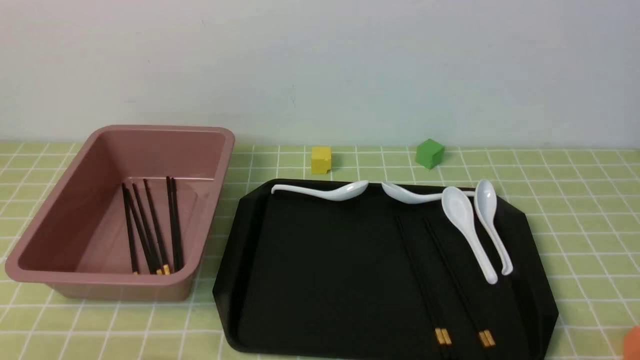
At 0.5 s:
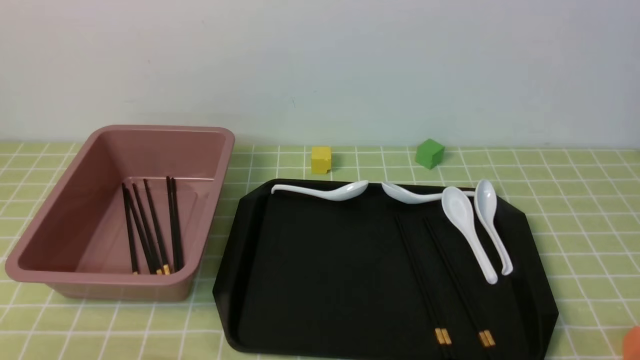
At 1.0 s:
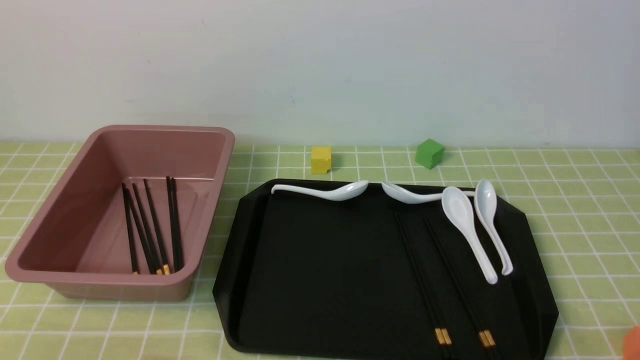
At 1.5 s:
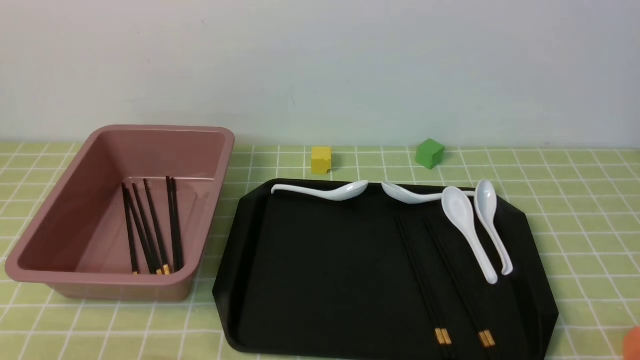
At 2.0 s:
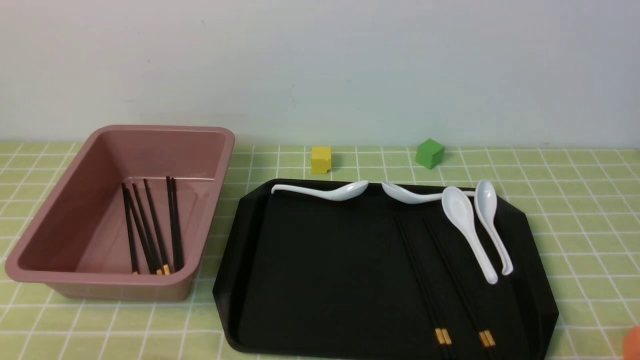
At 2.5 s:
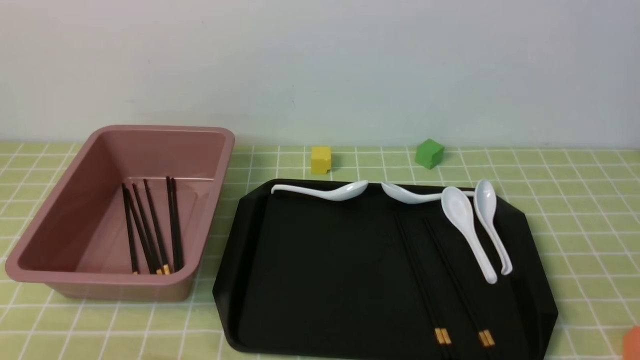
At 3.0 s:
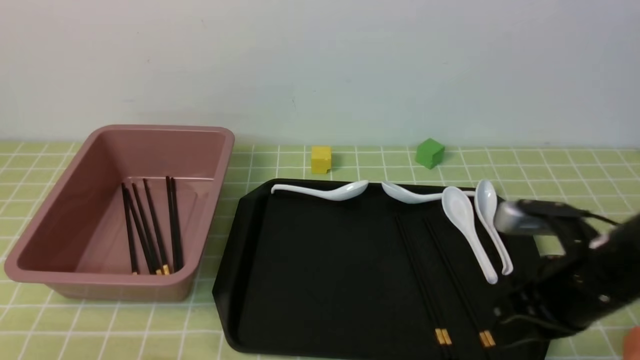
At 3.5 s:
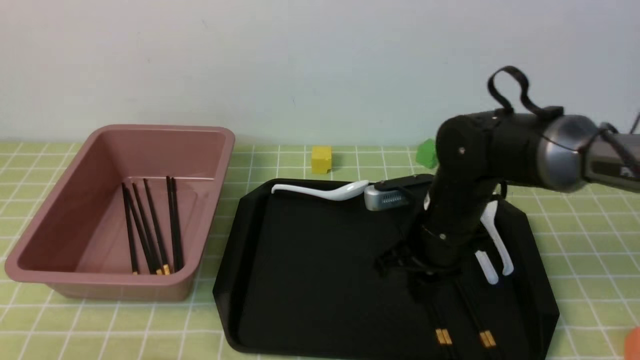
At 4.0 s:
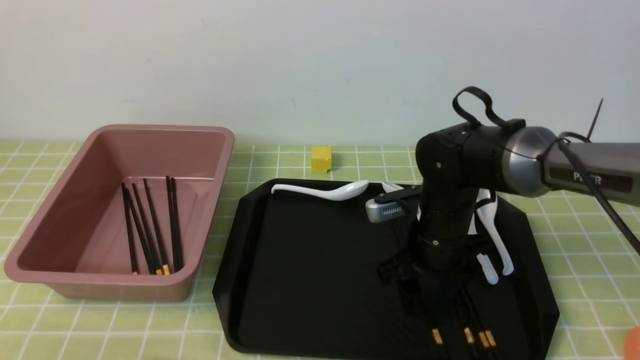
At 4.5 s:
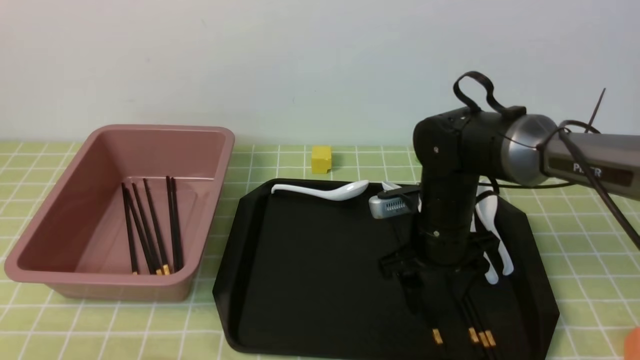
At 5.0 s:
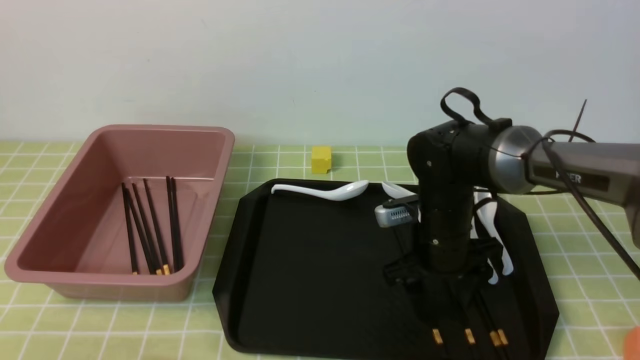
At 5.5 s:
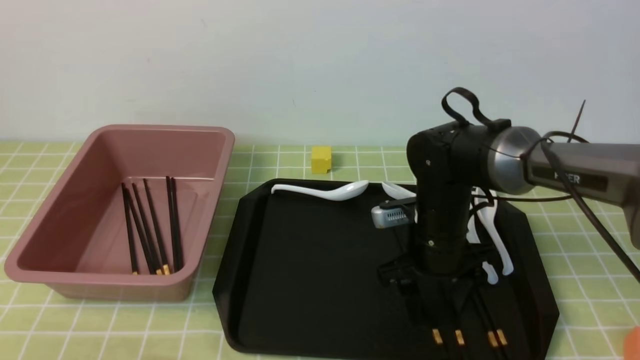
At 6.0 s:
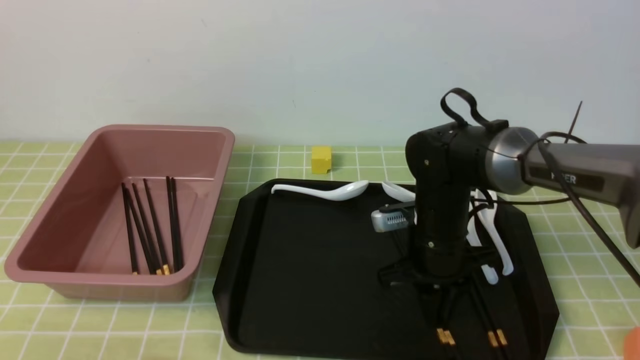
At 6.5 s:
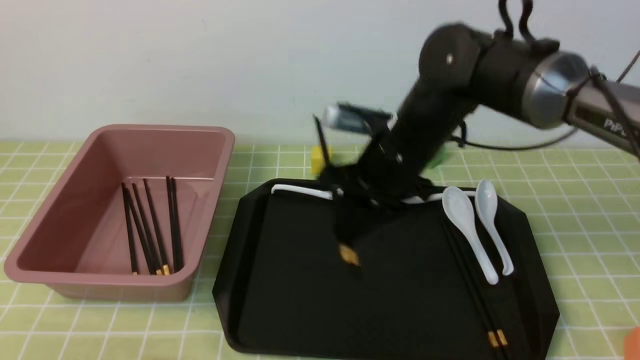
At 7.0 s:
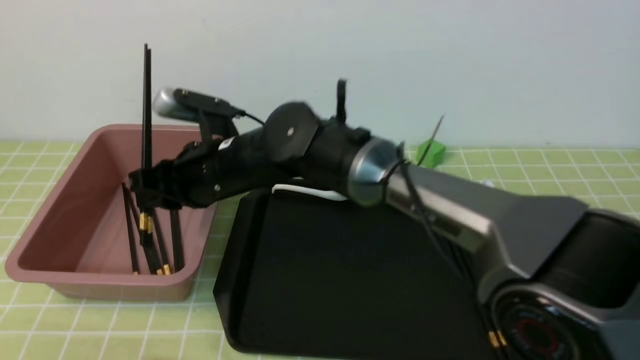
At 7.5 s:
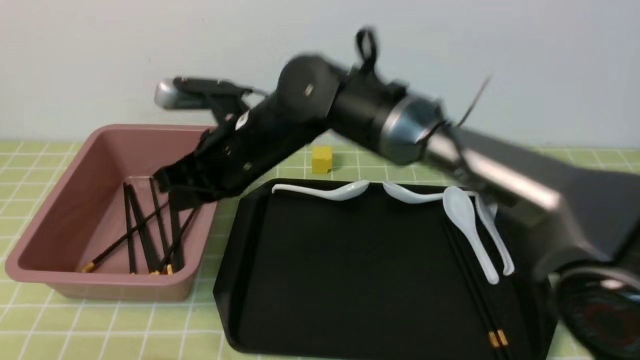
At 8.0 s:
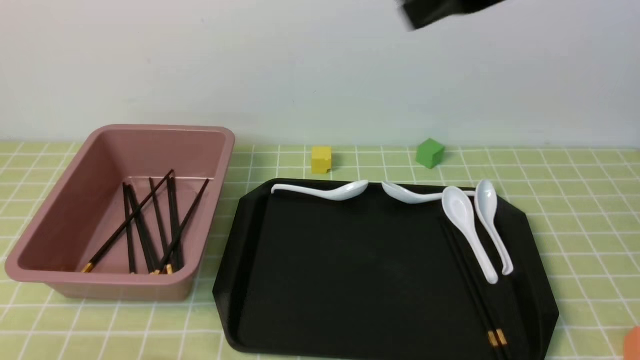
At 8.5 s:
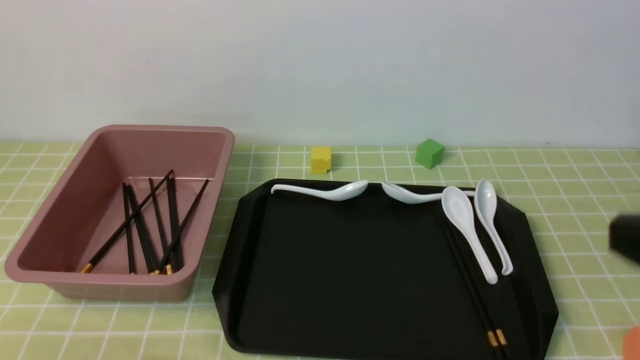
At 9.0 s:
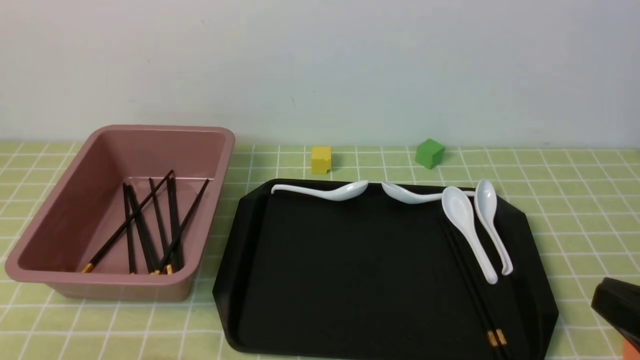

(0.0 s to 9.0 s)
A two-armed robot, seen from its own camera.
Step, 0.0 s - 6.0 s: use the right arm to grab a pair of chopsticks.
Step, 6.5 s - 7.5 s: use the right arm to put the chopsticks into the lunch box.
2.0 s - 4.5 s: The left gripper opens, while the right gripper is displaced forward and to the left by roughly 35 cm, and opens up.
4.5 s - 7.0 s: The right gripper shifts roughly 20 cm to the left and upward, and closes its fingers.
7.0 s - 9.0 s: The right gripper moves to the right and backward, some 40 cm.

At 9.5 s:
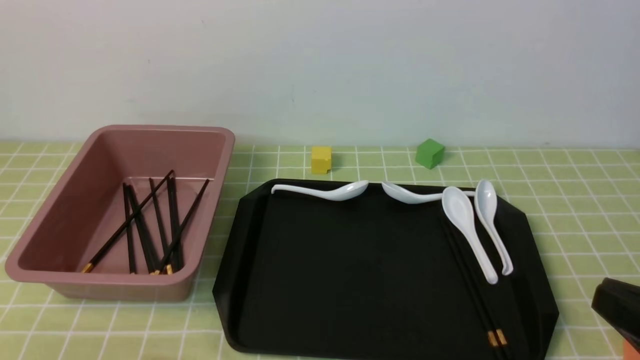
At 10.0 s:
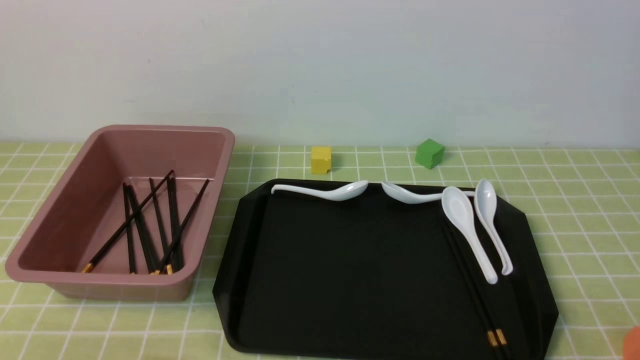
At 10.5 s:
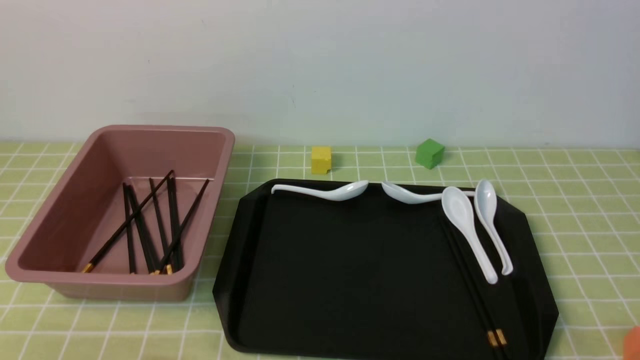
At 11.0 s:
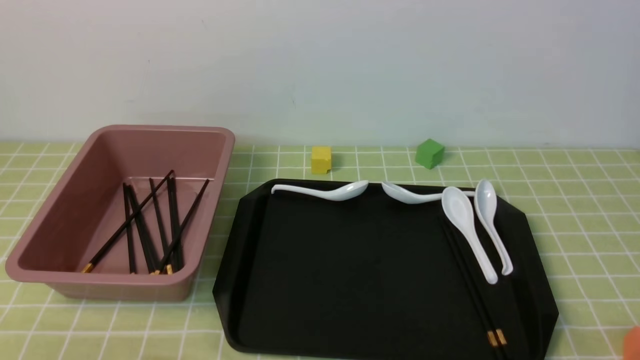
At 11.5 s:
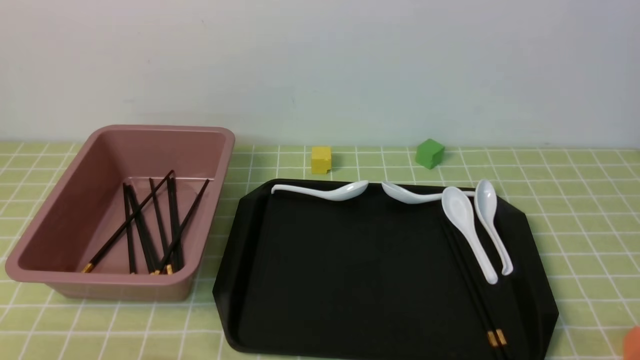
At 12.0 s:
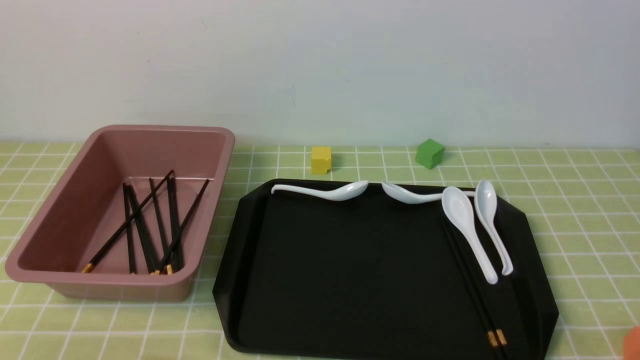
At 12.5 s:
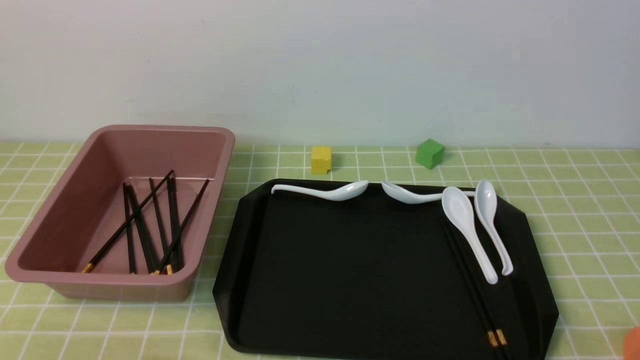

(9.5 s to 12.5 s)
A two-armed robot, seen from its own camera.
9.5 s - 11.0 s: The right gripper travels downward by roughly 10 cm.
11.0 s - 12.5 s: The two grippers keep their place.

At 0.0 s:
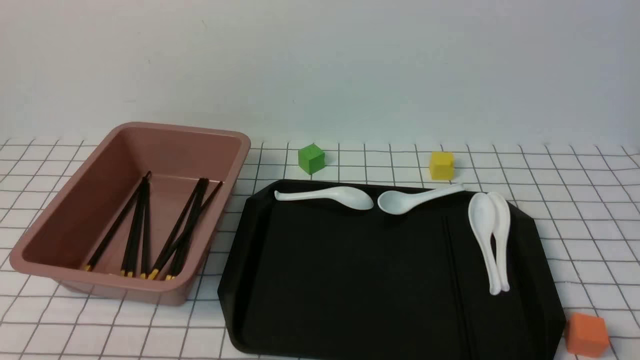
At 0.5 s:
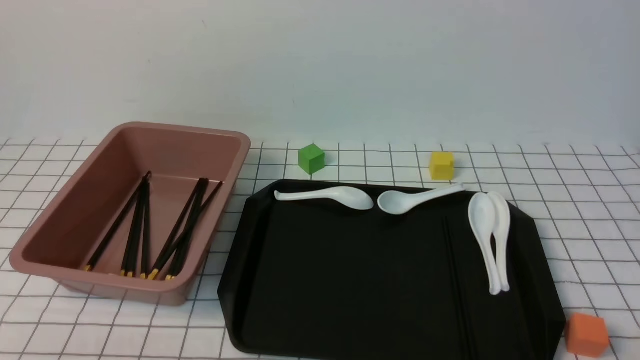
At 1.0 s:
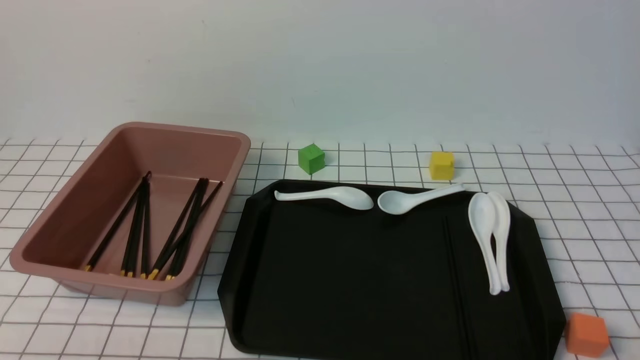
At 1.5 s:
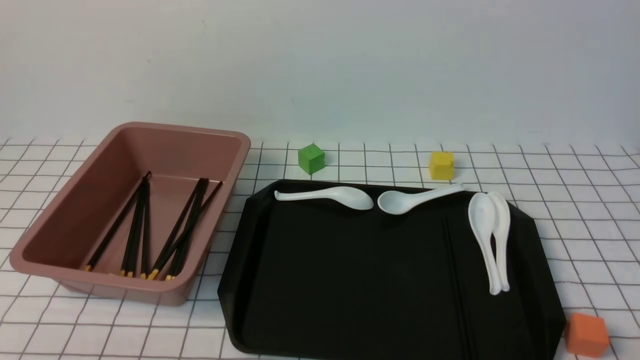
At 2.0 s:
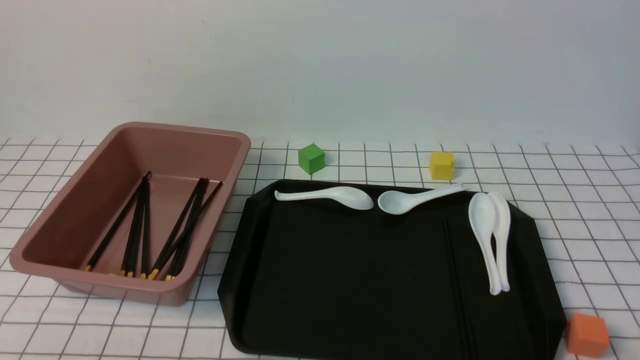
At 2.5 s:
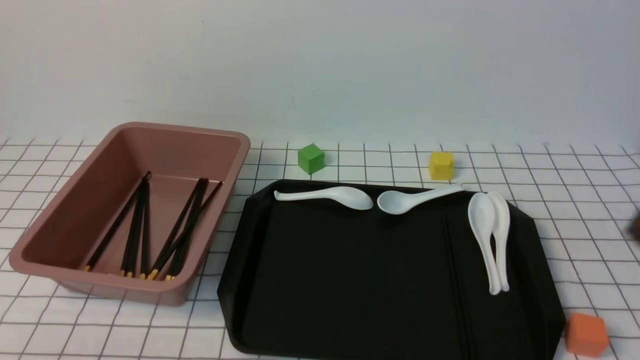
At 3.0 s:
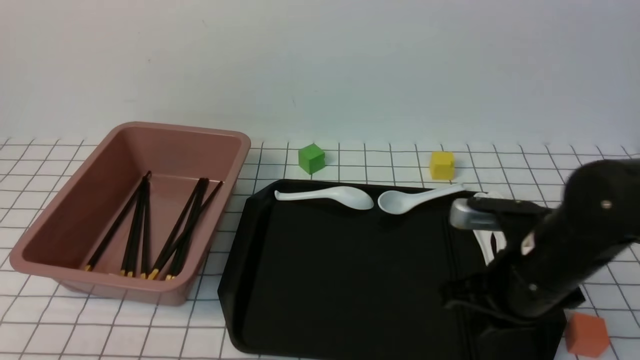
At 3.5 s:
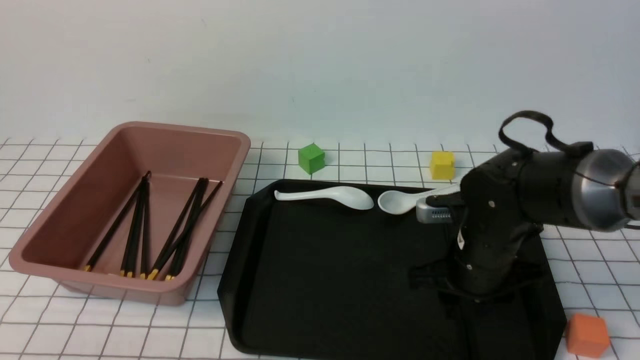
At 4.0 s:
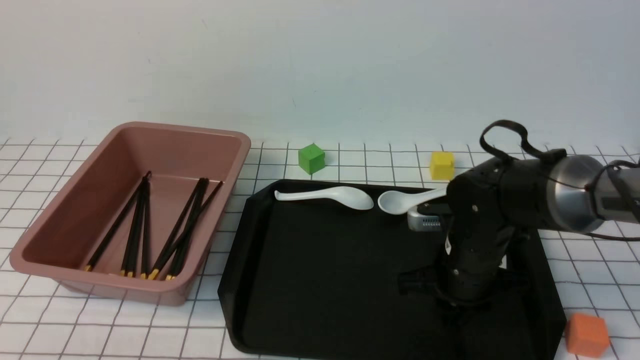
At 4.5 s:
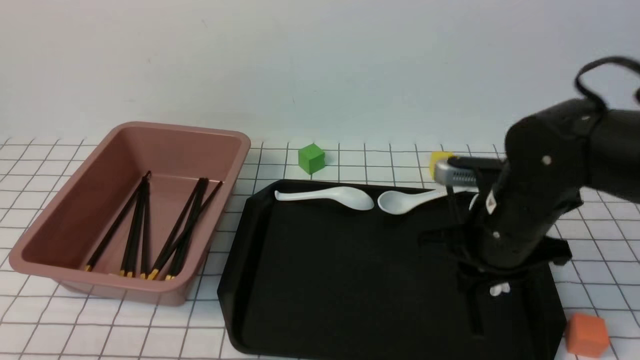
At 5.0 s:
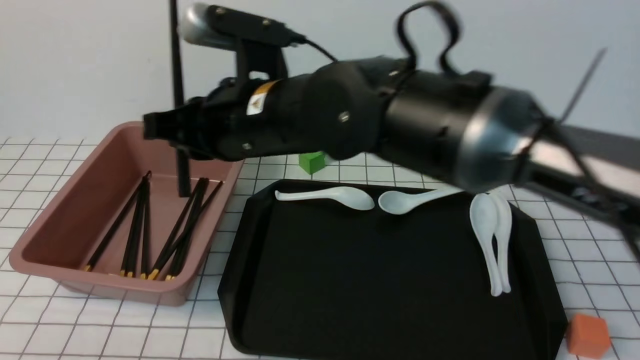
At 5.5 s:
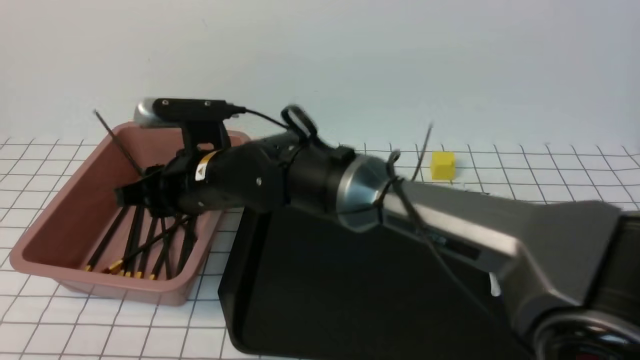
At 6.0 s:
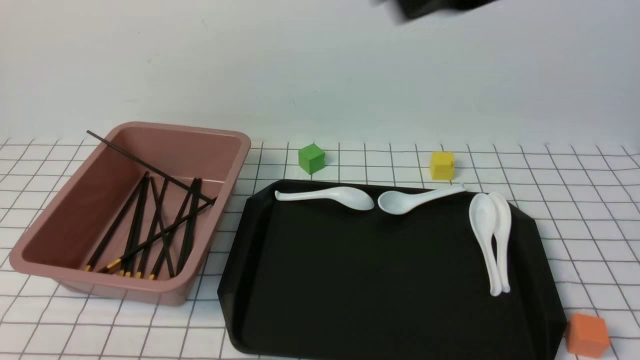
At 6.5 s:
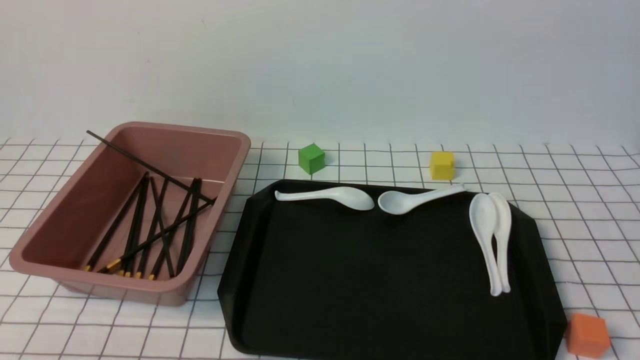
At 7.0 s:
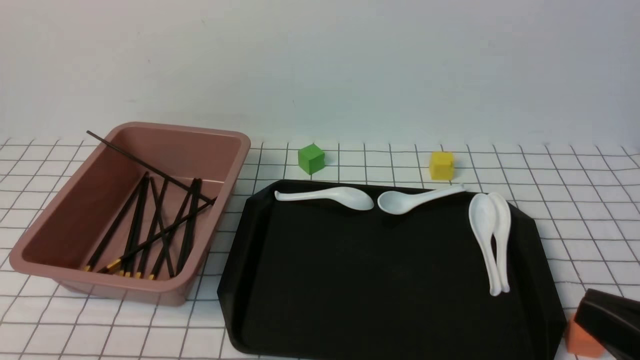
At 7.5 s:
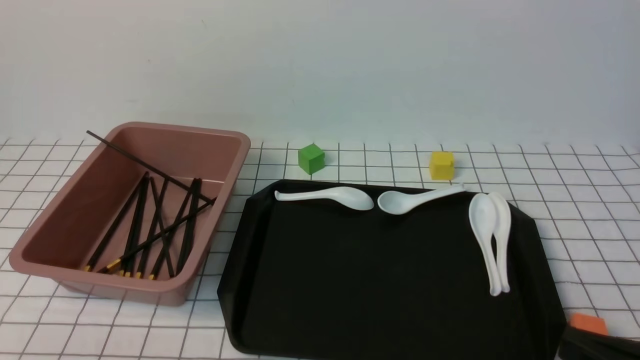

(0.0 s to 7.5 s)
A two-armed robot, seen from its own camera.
Step, 0.0 s - 4.5 s: use the right arm to grab a pair of chopsticks.
Step, 5.0 s - 5.5 s: use the right arm to put the chopsticks into the lunch box.
2.0 s - 4.0 s: The right gripper moves forward and to the left, approximately 30 cm, and closes, then reopens.
4.0 s - 5.5 s: The right gripper heads to the left and upward, covering some 25 cm, and closes and opens again.
5.5 s - 7.5 s: The right gripper travels to the right and backward by roughly 40 cm, and closes.
